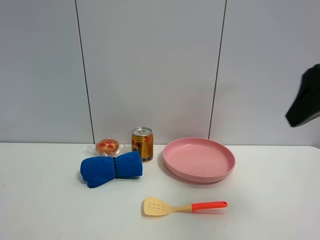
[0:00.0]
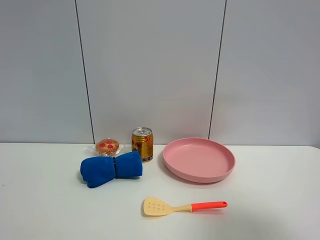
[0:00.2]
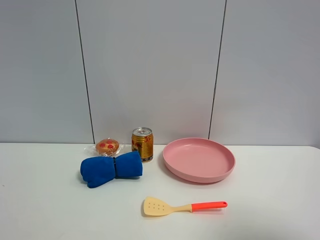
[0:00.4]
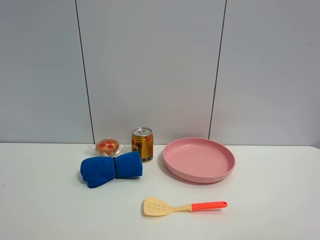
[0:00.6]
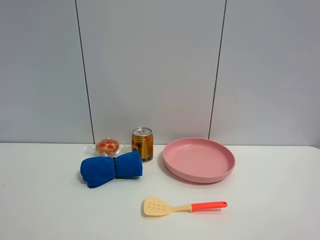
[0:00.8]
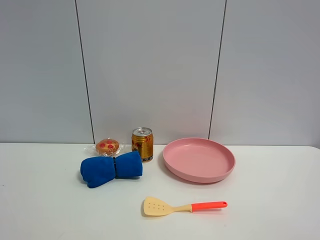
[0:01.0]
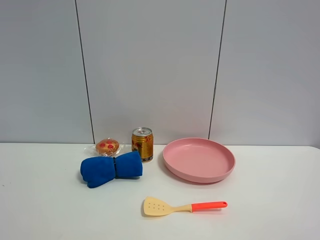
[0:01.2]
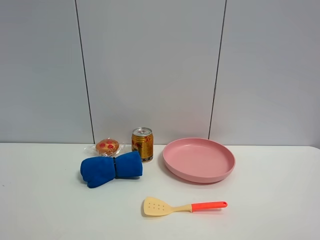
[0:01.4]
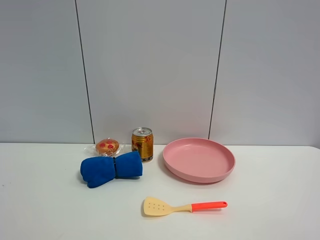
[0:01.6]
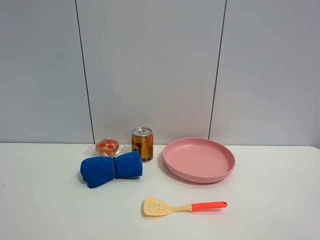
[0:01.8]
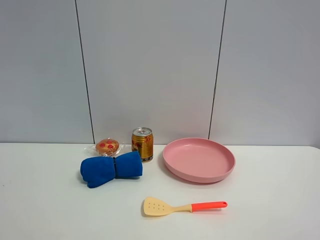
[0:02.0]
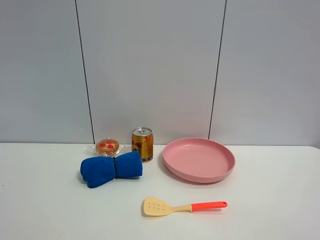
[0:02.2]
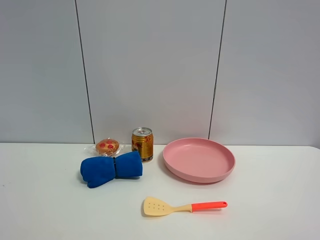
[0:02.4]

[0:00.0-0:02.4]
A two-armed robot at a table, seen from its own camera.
Task of the whole recording: the gripper move the object.
0.0 to 1.2 s: The right gripper moves backward, some 20 cm.
1.2 to 2.4 s: Neither gripper changes place.

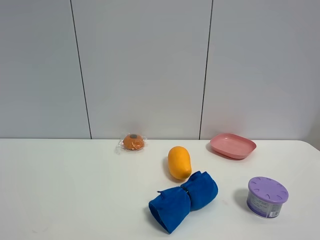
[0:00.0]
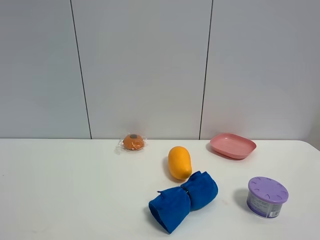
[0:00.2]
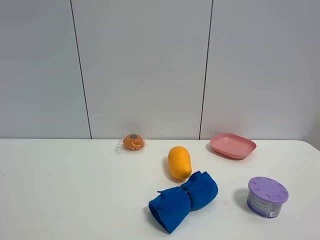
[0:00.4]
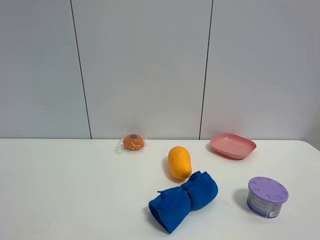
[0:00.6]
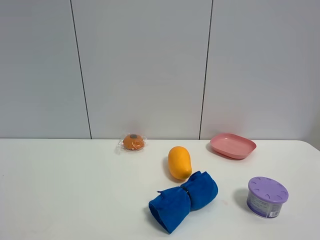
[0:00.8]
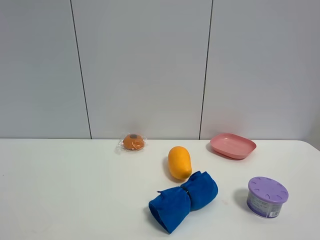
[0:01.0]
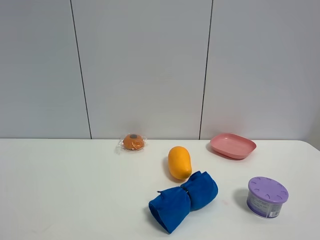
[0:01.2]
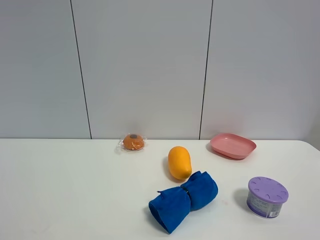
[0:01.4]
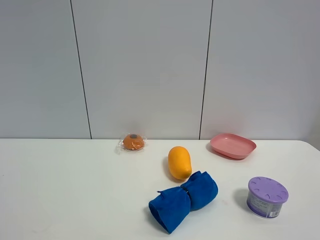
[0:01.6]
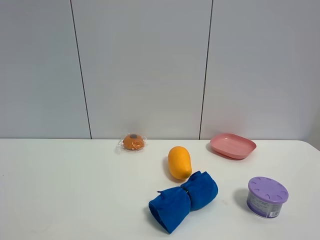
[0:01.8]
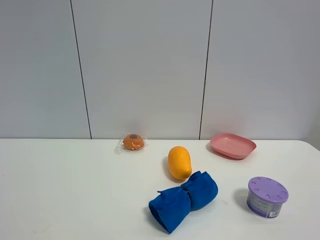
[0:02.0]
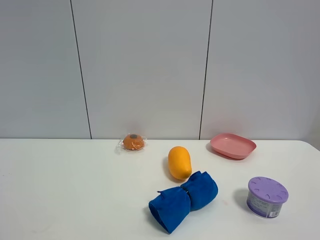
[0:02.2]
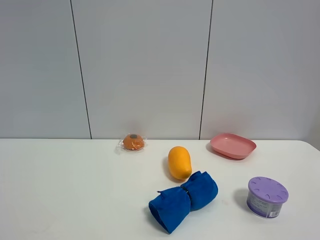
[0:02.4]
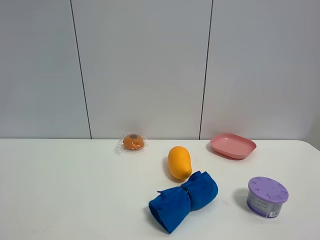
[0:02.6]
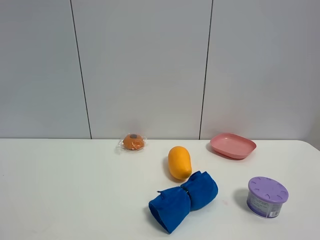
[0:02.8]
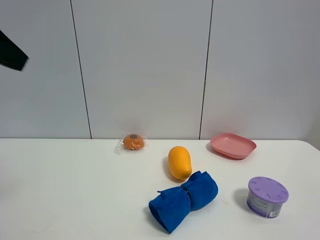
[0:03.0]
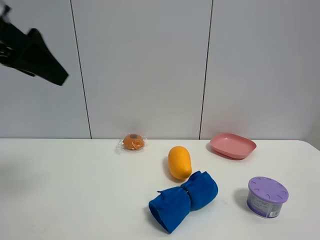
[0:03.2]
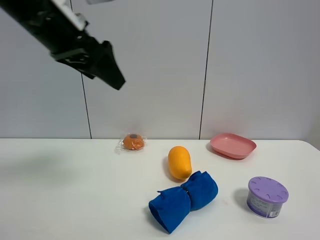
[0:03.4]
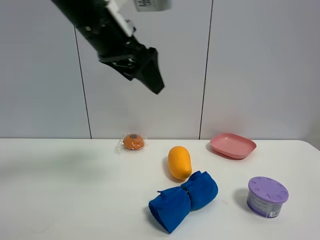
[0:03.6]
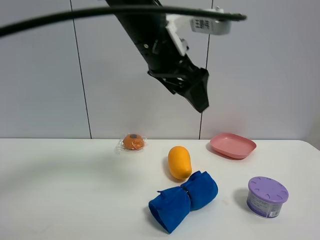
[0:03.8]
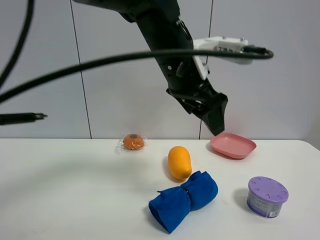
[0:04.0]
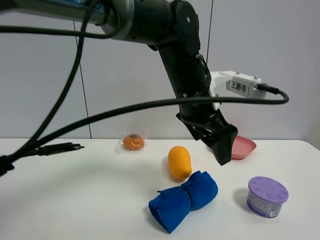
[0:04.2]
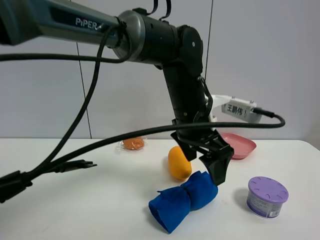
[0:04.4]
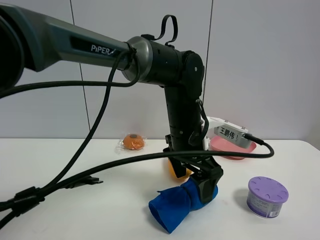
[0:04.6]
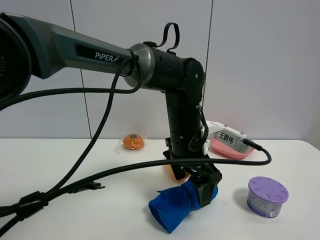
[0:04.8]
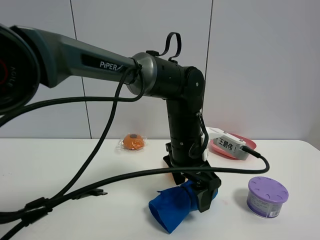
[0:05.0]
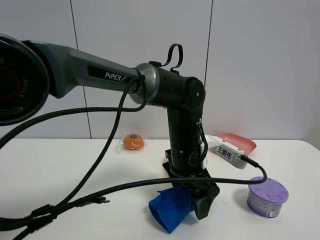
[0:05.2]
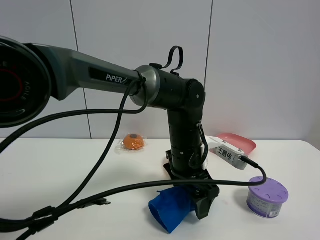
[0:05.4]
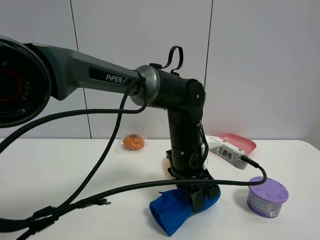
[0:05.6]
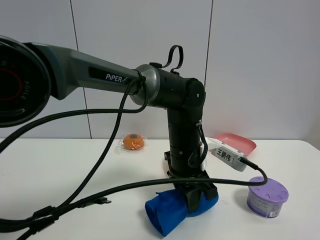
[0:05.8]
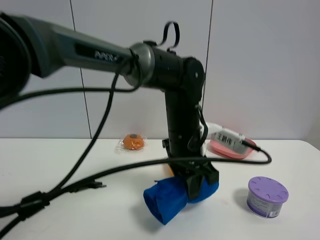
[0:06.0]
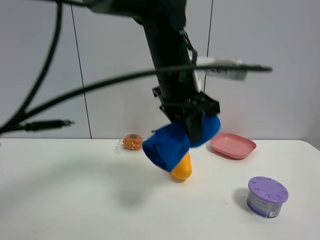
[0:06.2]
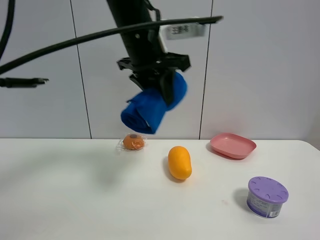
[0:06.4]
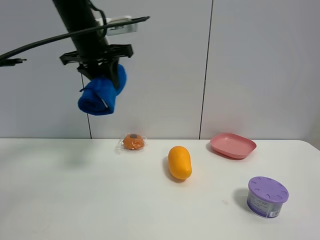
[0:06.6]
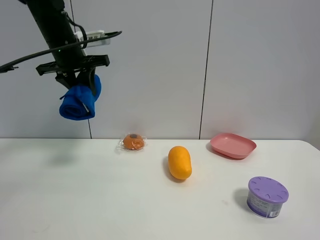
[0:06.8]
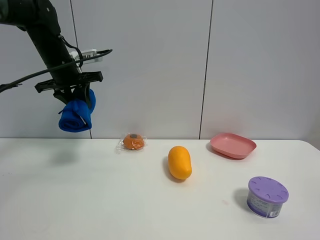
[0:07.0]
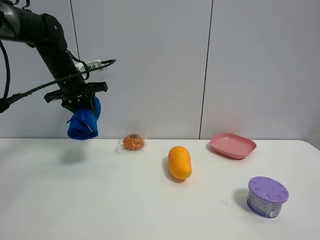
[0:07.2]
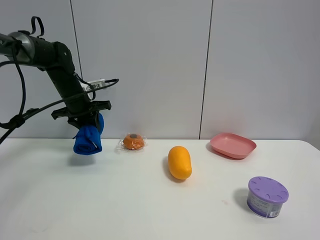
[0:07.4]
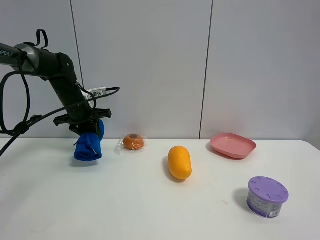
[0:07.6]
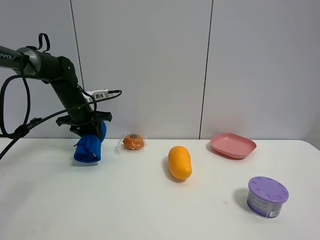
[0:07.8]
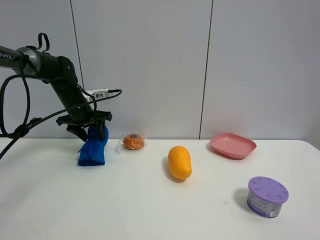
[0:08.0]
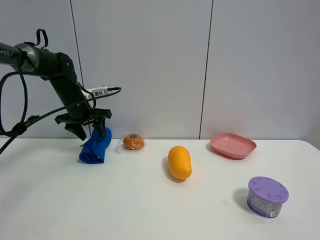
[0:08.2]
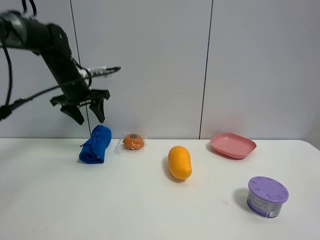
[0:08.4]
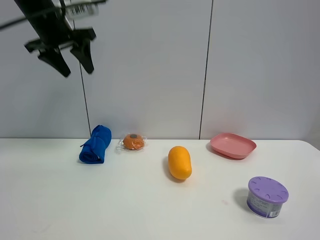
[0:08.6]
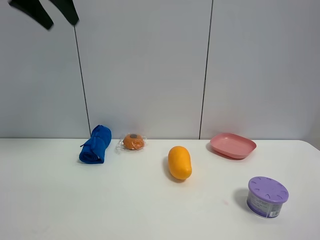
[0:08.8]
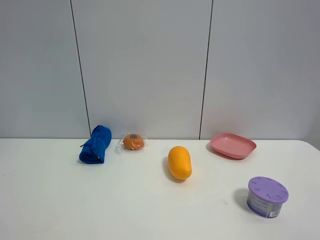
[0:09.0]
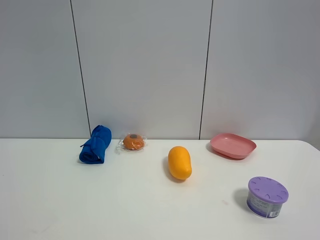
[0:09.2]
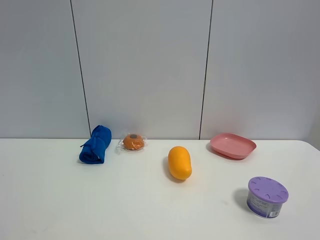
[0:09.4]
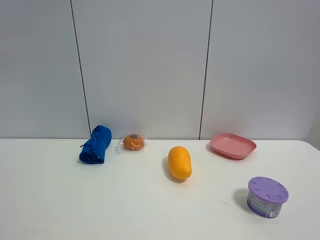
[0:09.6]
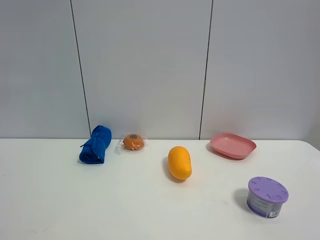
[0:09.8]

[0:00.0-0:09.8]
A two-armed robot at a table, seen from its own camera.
Task of the whole recording: the gripper move the object.
Step, 0.0 to 5.6 s: Grasp the blue towel with the left gripper.
Step, 5.8 to 8.0 s: Place the blue towel on the table with the left gripper.
0.0 to 1.4 s: Both grippers stay about where they are.
2.8 to 4.2 s: The left gripper moves to the right, forward and downward, about 40 cm.
4.2 to 5.6 s: The left gripper moves downward, some 10 cm, and closes.
5.6 to 7.0 s: The left gripper goes roughly 35 cm to the left, upward and forward.
7.0 to 8.4 s: The left gripper reaches about 10 cm downward, then returns, and opens.
8.4 to 9.8 s: The left gripper is displaced backward and upward by roughly 50 cm.

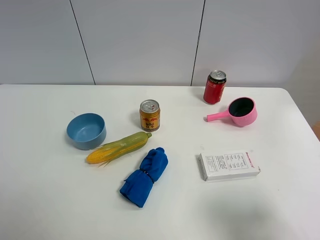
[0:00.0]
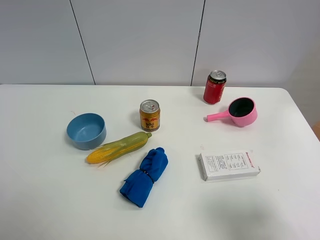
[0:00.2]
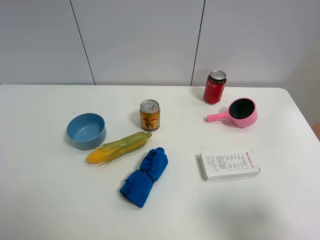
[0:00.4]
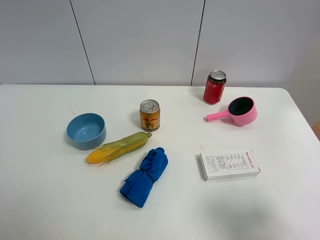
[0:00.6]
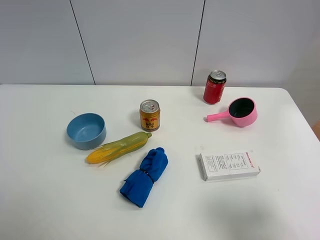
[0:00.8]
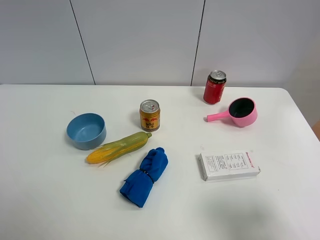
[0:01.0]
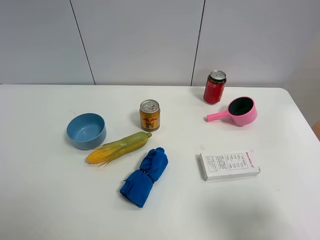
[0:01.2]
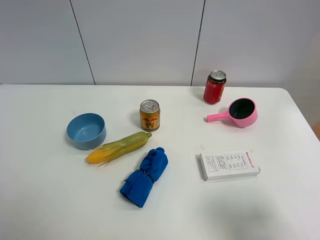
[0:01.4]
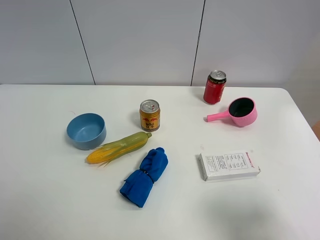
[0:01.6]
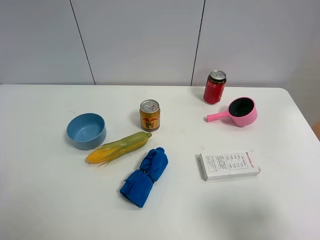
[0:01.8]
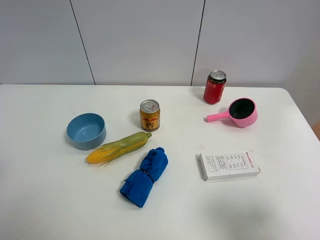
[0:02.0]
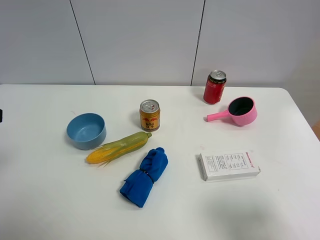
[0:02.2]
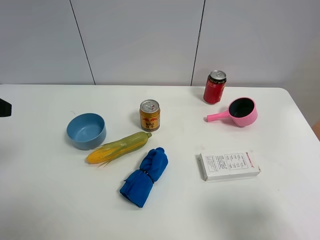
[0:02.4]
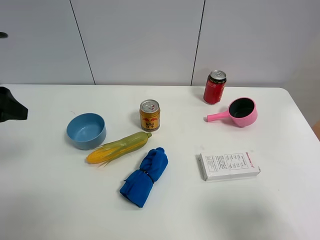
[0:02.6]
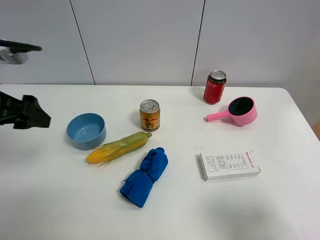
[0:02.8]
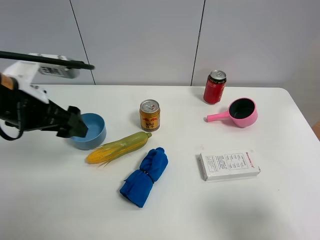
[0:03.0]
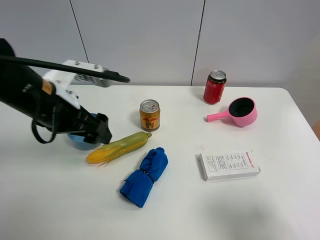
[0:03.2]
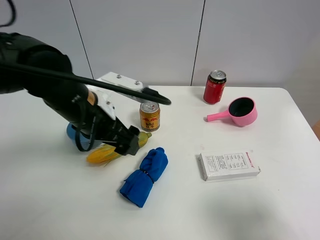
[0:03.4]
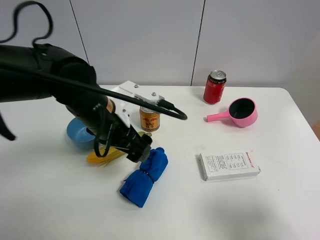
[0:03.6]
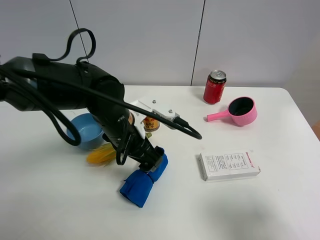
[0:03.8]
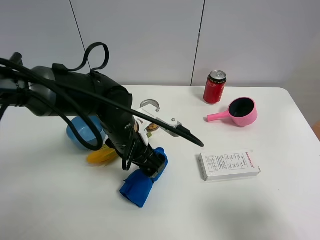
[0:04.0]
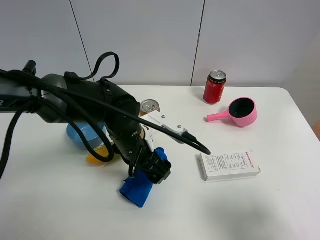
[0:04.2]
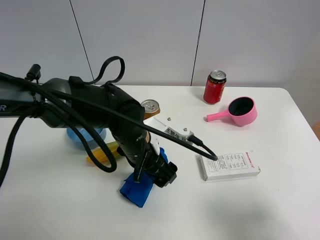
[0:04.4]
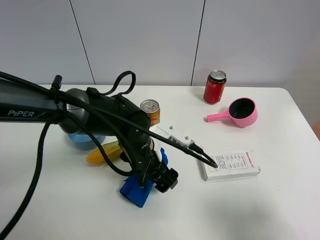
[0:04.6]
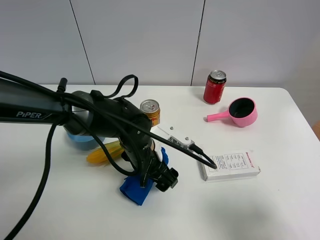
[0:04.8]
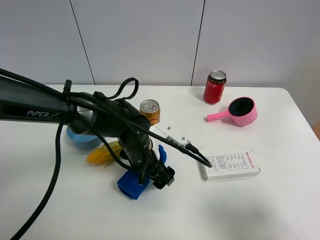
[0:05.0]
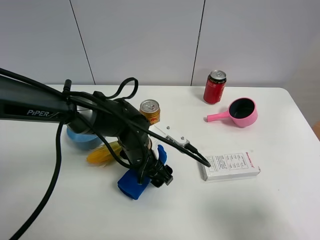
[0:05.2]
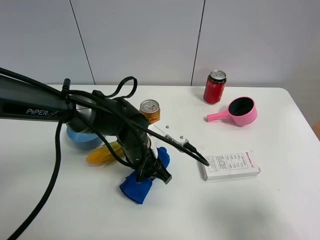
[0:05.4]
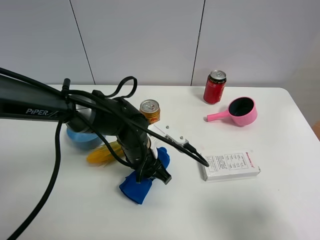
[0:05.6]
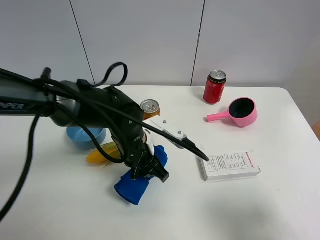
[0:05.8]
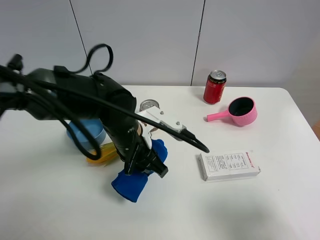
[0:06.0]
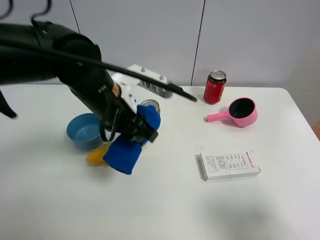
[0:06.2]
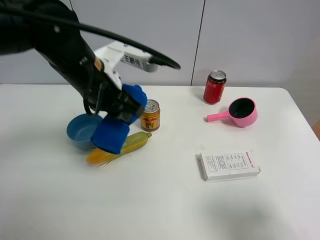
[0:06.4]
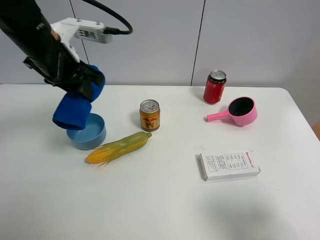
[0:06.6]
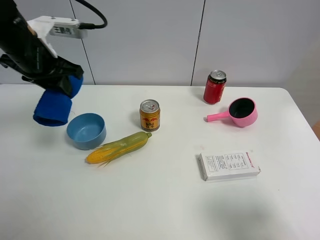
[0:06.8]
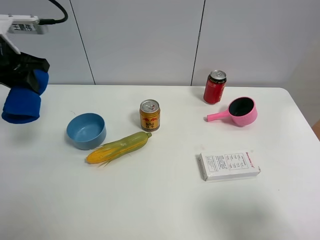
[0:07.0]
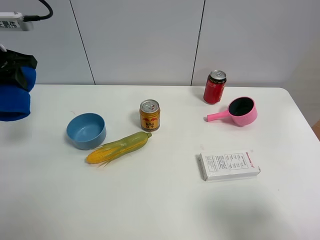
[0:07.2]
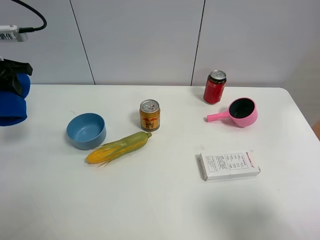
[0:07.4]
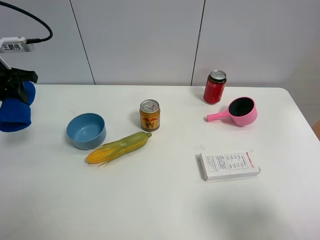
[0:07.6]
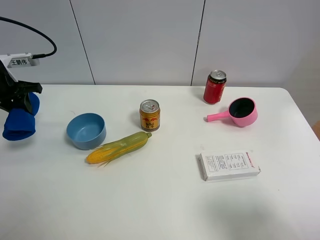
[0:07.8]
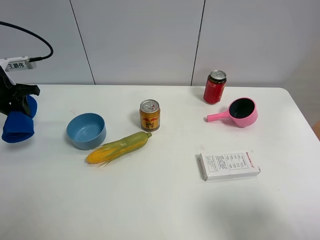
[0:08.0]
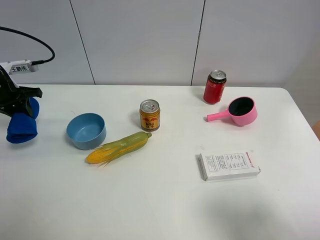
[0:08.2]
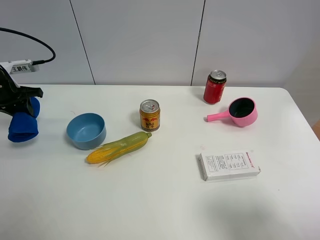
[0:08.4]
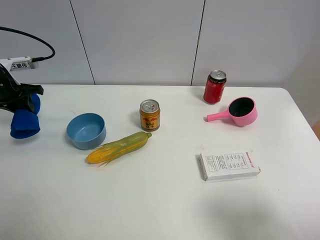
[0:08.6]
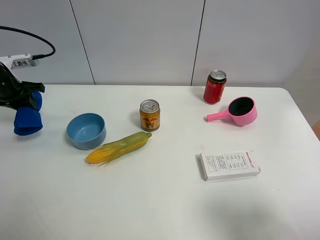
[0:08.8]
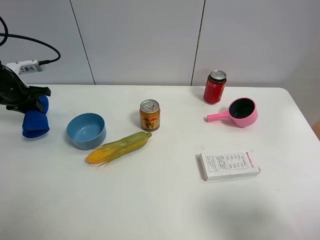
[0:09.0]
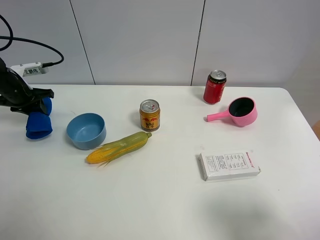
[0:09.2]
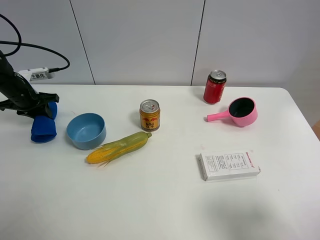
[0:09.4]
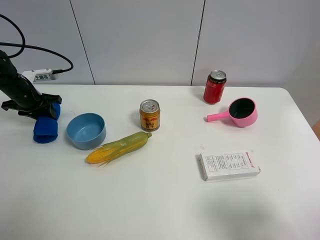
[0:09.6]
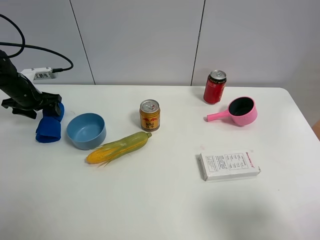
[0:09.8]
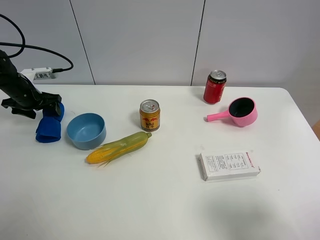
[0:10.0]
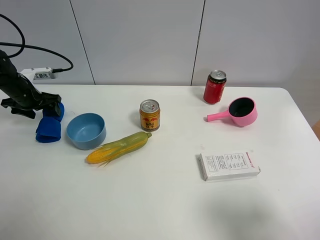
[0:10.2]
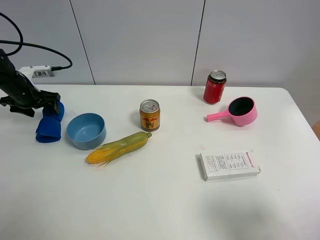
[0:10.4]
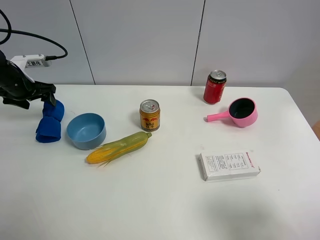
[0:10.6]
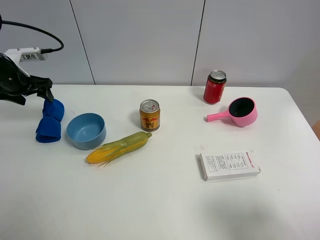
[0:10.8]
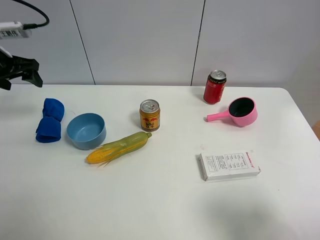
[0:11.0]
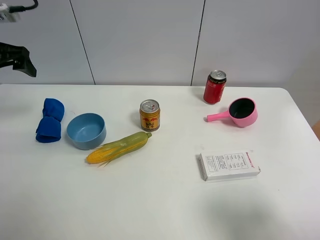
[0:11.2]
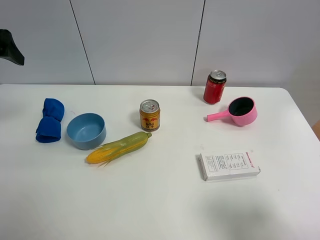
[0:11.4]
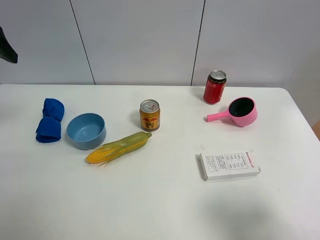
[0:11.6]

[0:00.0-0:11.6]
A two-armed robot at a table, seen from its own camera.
Task of the whole recording: the gripper move the object.
Step, 0.0 to 5.4 s: Grasp the blue towel with the left gripper.
Step, 5.6 to 10.8 s: Place the blue towel on the table with the left gripper.
0.0 to 1.4 s: The two grippers keep their place.
1.4 to 2.8 s: The left gripper is displaced forward by some 20 cm.
2.8 to 4.4 s: The left gripper is displaced to the right and downward by roughly 30 cm.
4.4 to 5.8 s: The left gripper closes up.
5.8 to 7.2 s: The left gripper is displaced to the left and upward by approximately 35 cm.
7.2 to 8.8 s: The left gripper travels downward, forward and to the left by roughly 15 cm.
8.8 to 10.2 s: The left gripper moves approximately 5 cm, and opens its fingers.
10.2 to 11.6 s: The left gripper travels upward and backward by roughly 25 cm.
